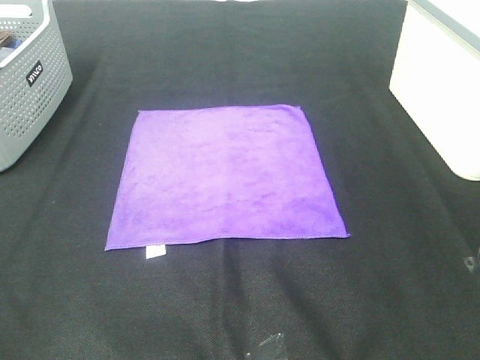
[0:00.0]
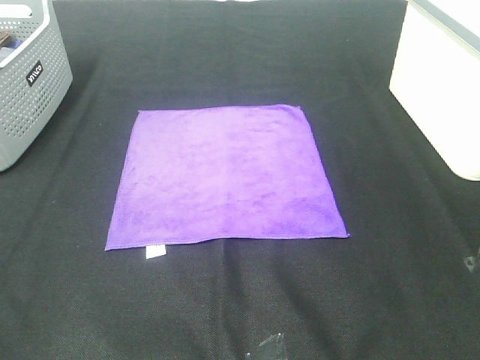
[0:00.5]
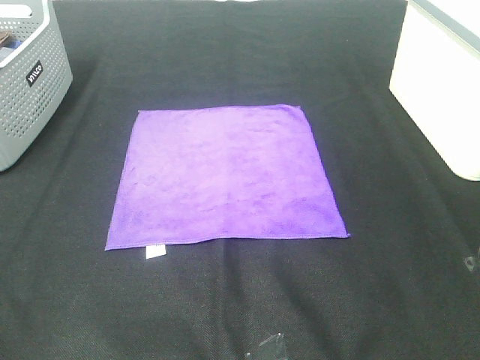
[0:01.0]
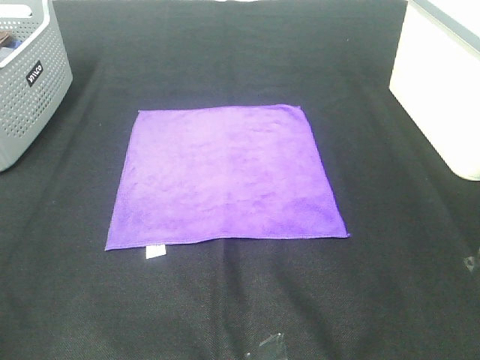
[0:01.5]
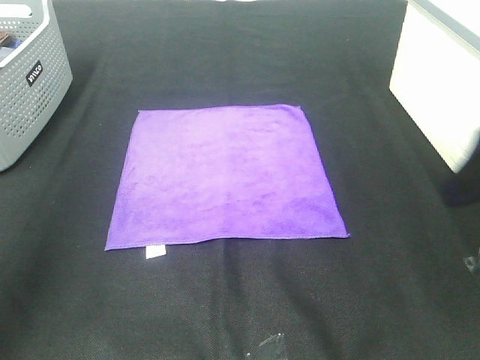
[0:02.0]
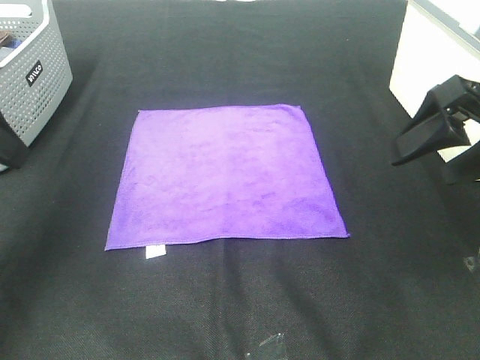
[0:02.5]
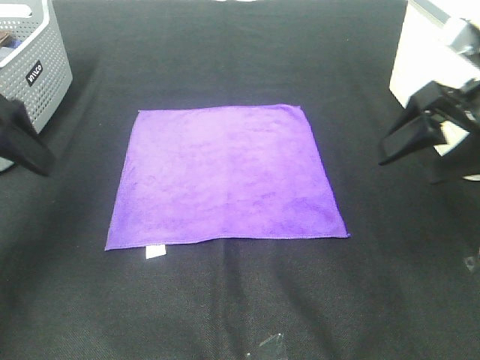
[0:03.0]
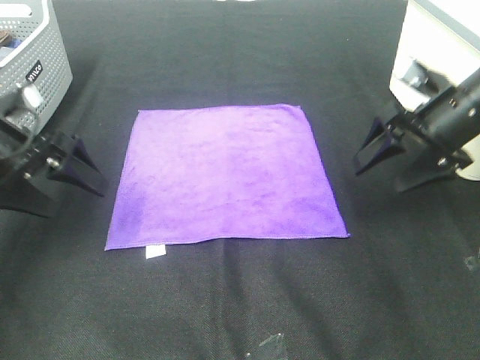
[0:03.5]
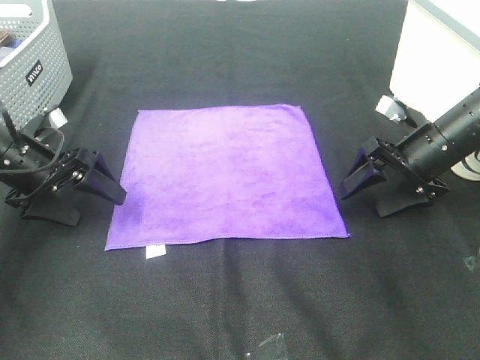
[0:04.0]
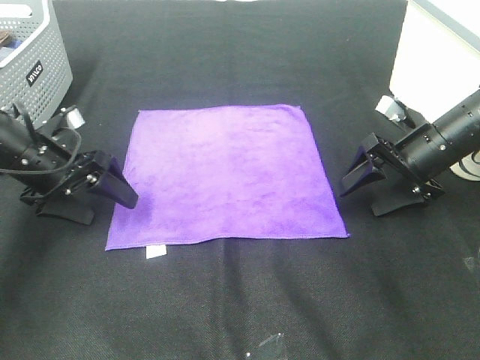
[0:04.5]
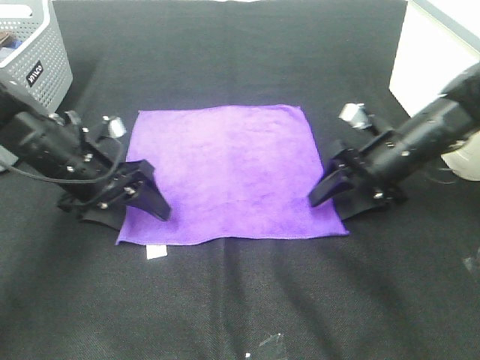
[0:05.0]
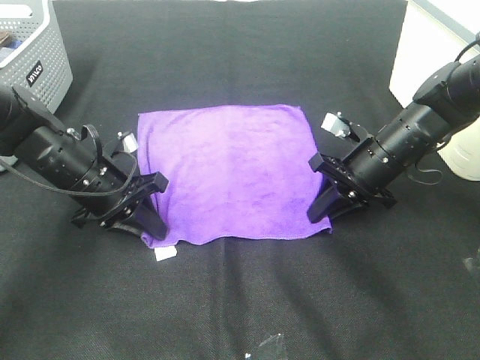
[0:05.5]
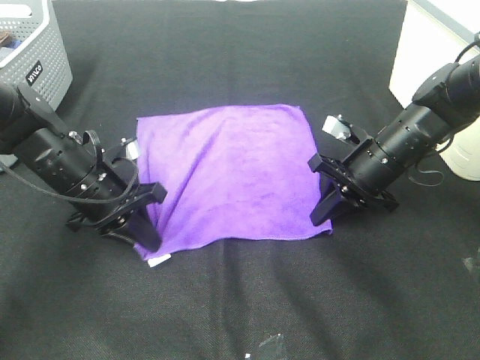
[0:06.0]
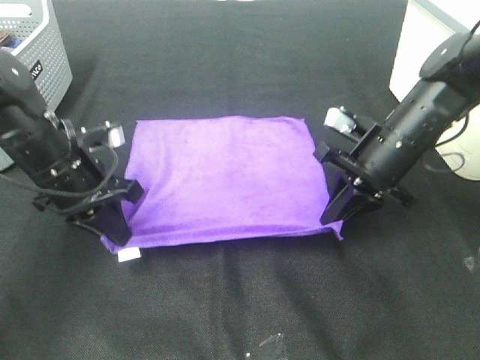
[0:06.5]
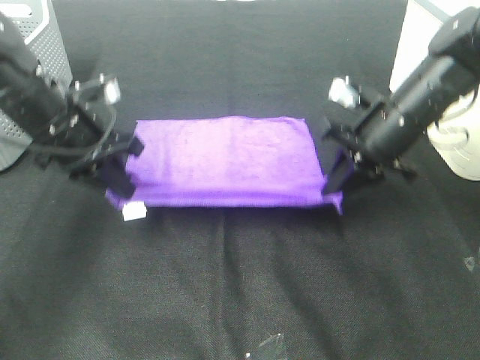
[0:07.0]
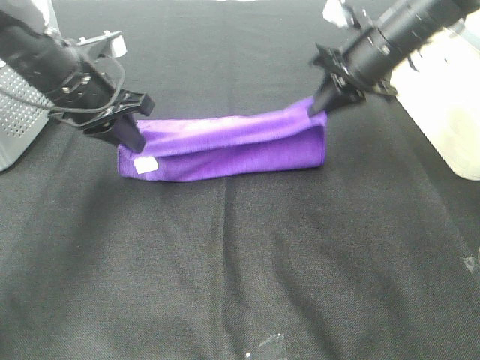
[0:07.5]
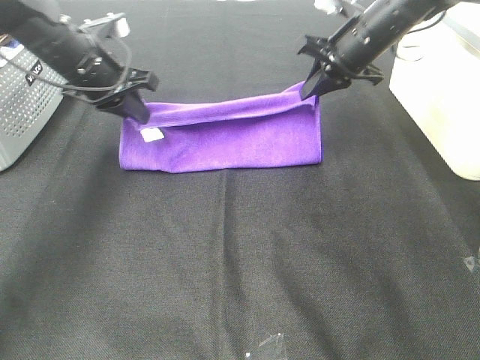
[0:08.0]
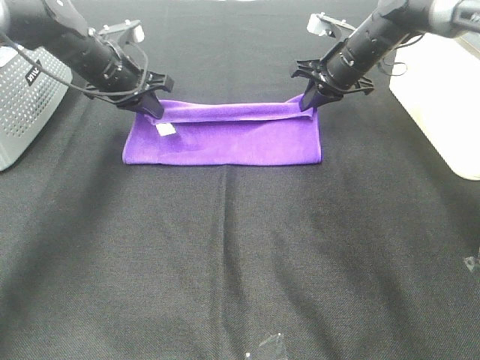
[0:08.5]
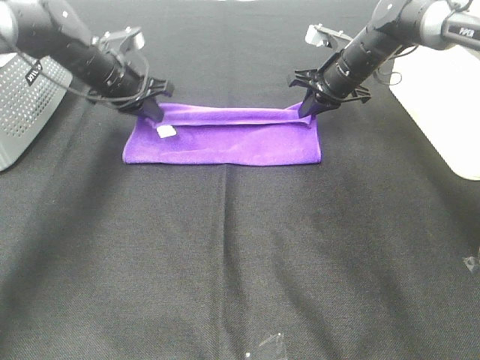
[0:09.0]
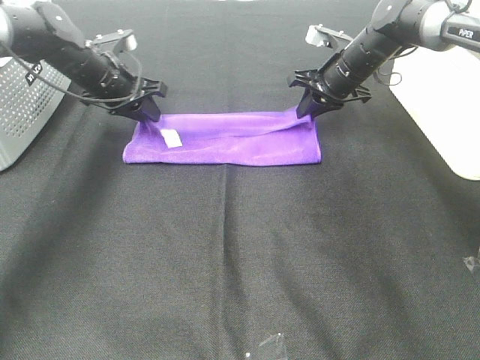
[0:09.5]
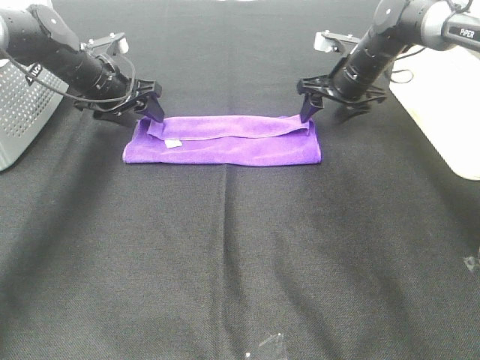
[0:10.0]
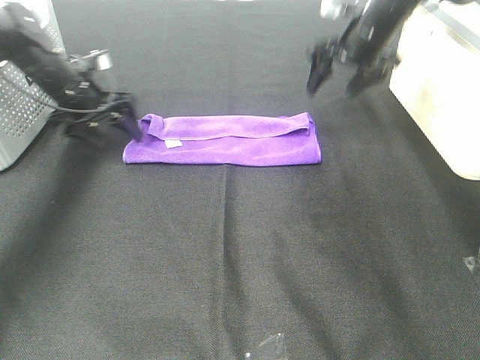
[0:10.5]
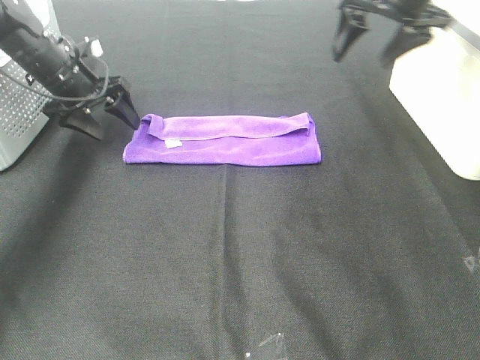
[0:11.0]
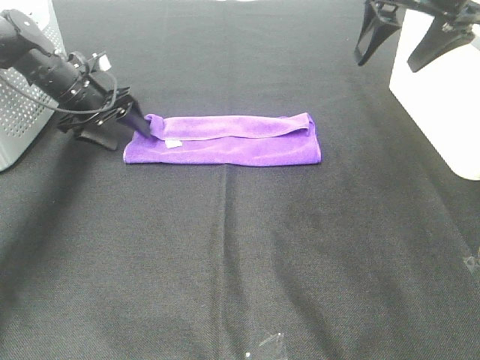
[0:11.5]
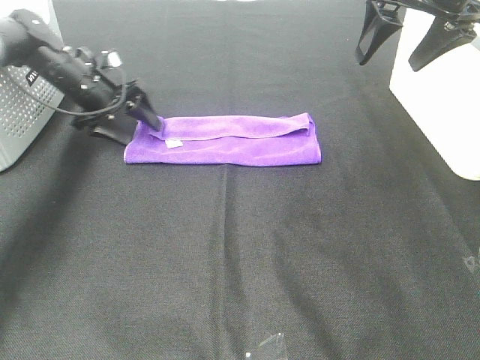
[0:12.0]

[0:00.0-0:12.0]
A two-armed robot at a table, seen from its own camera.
Task of the whole recording: Fold towels.
Step, 0:00.0 to 0:05.5: Left hand: grab the bottom left corner of purple towel.
Step, 0:00.0 to 0:05.5: Right hand: grab the bottom right corner of purple towel.
Step, 0:06.0 to 0:09.0: Left hand: fold the purple towel up.
Step, 0:06.0 to 0:09.0: Right hand: fold the purple towel up.
0:00.0 to 0:02.0: The grippers both shift forward by about 20 cm.
0:02.0 to 0:04.0: The two grippers go approximately 25 cm downward and forward.
0:04.0 to 0:06.0: The left gripper moves to the right, some 10 cm, and closes; the right gripper heads to the left, covering about 5 cm, and closes up.
0:06.0 to 0:08.0: Both grippers travel together forward and upward, roughly 15 cm.
0:08.0 to 0:10.0: The left gripper heads forward and downward, covering about 10 cm, and opens its fingers, while the right gripper is displaced downward by roughly 5 cm, and opens up.
0:10.0 to 0:12.0: The right gripper goes some 25 cm upward and backward.

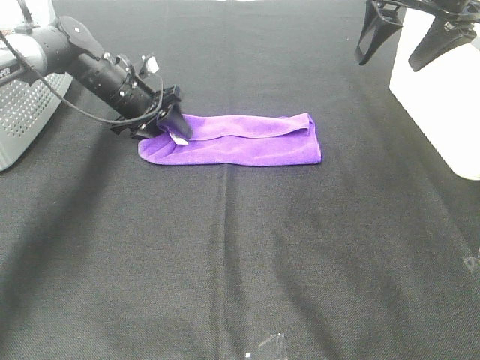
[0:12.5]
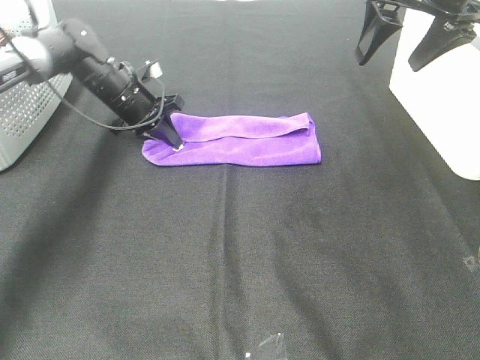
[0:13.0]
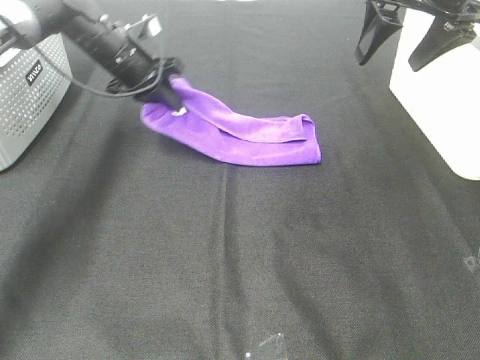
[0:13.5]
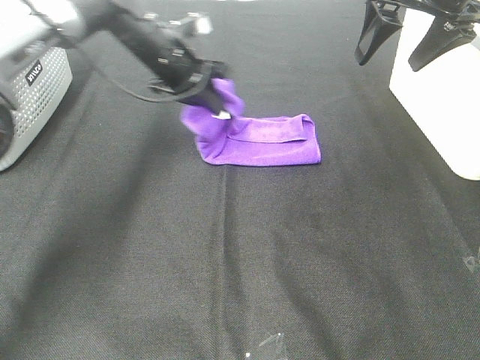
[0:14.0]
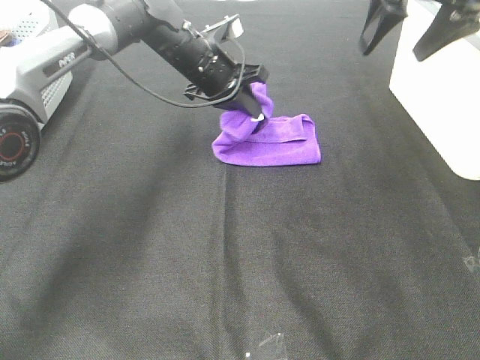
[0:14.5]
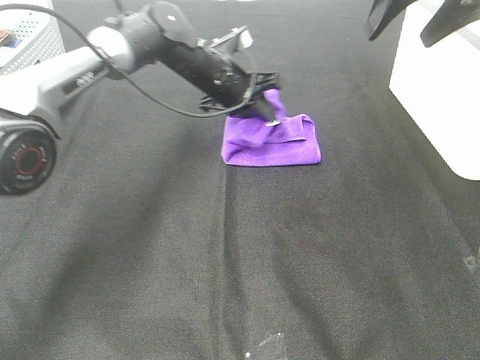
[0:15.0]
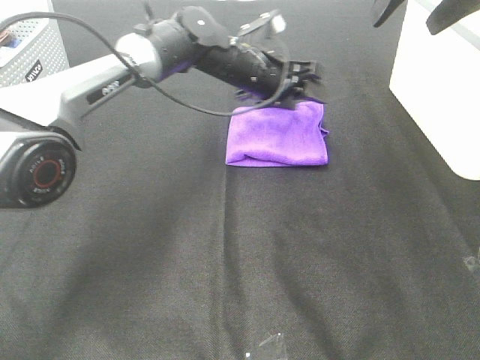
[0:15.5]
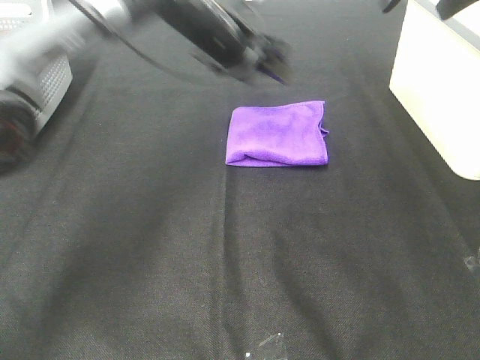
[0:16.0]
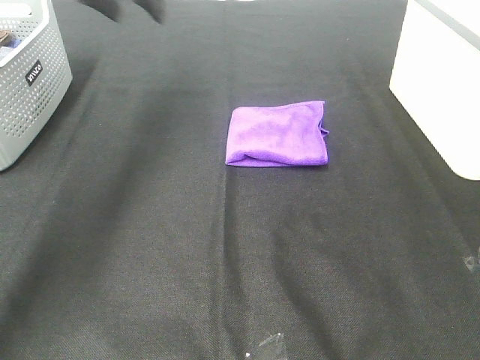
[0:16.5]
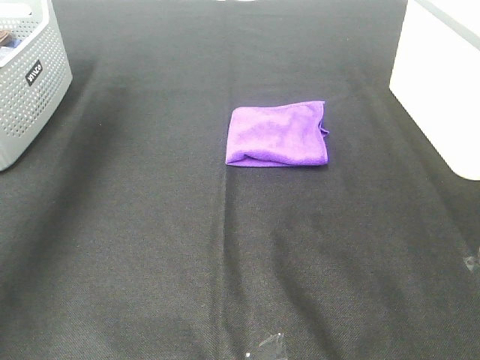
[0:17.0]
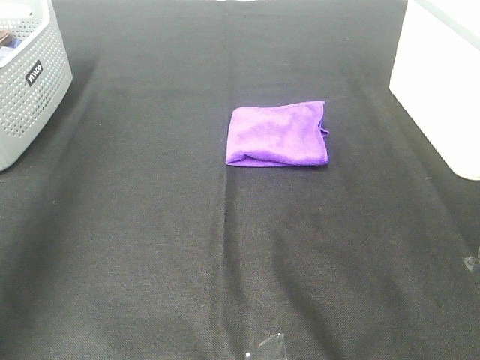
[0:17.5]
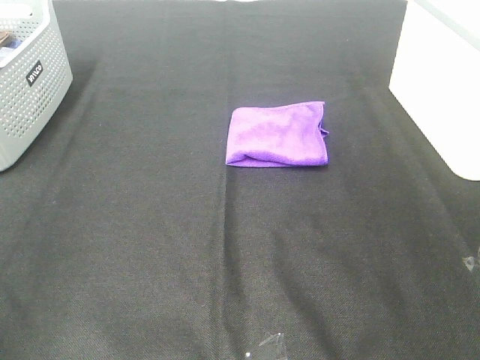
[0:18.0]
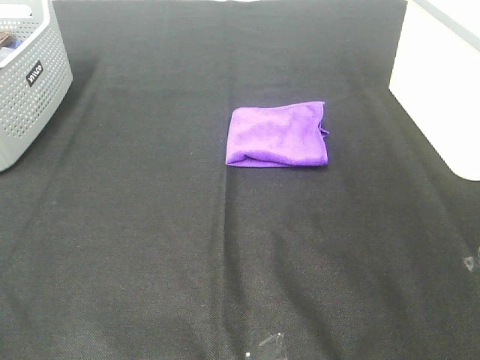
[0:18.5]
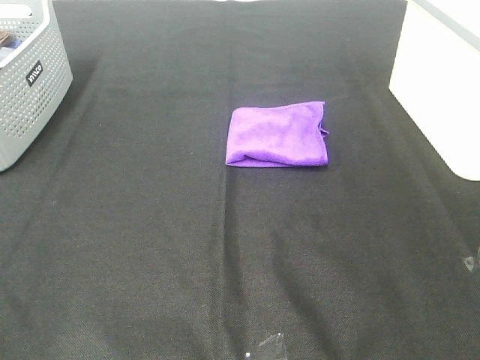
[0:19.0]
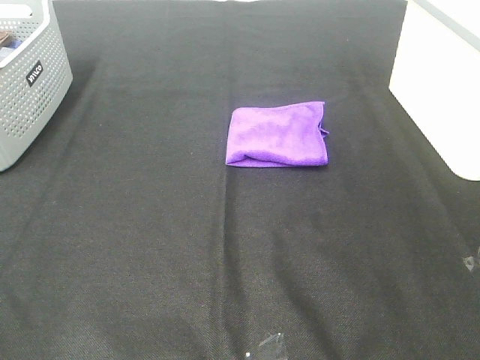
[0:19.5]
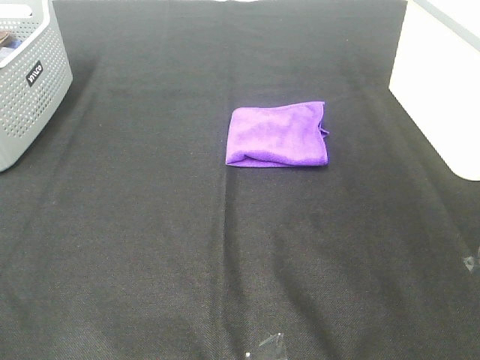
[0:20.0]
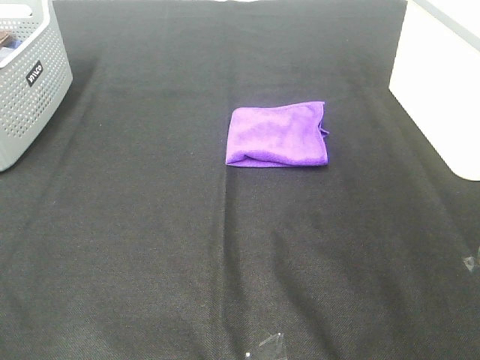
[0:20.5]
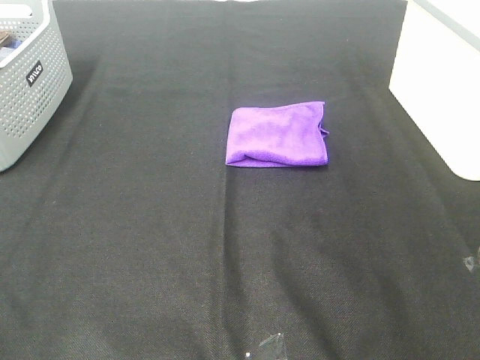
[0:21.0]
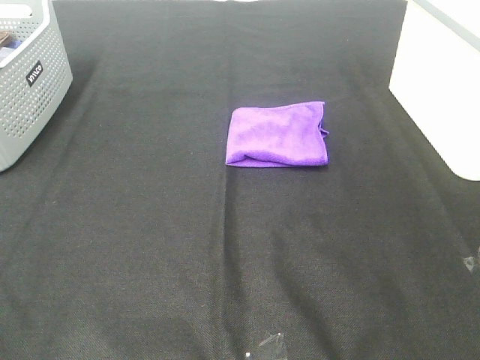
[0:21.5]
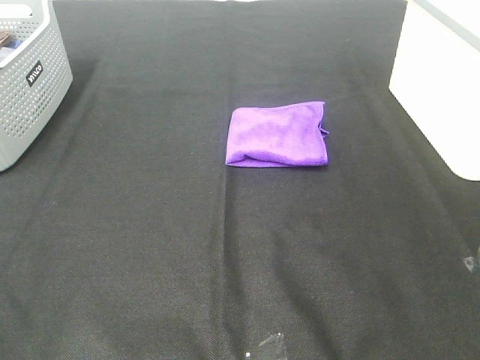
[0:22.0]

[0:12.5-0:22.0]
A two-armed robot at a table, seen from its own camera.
Task of the whole recording: Fold towels.
Step, 0:12.5 to 0:14.5: Left hand: fold the purple towel from left to right.
0:12.5 to 0:14.5: The left gripper goes approximately 15 cm to the right and upward, and closes up.
0:14.5 to 0:16.5: The left gripper heads upward and to the left, covering some 20 cm, and opens its fingers. Meanwhile the right gripper shifts some 10 cm upward and backward.
0:16.5 to 0:18.0: The left gripper goes roughly 50 cm backward, while the right gripper shifts roughly 30 cm backward.
0:20.0 to 0:22.0: Both grippers stay about where they are.

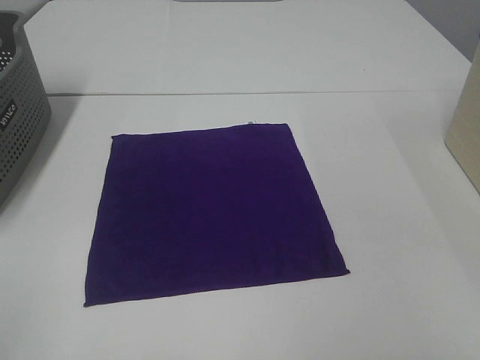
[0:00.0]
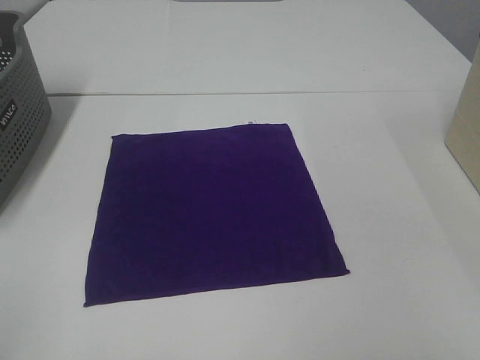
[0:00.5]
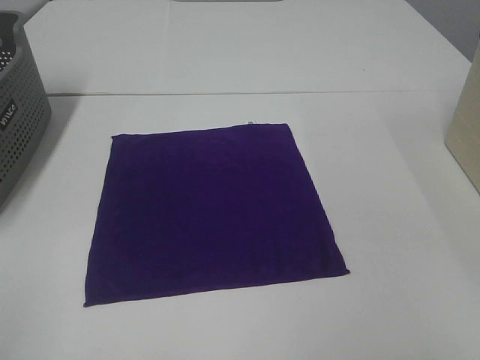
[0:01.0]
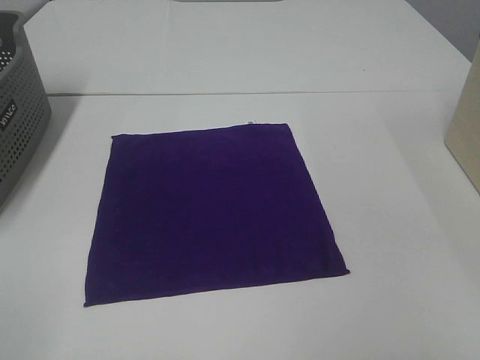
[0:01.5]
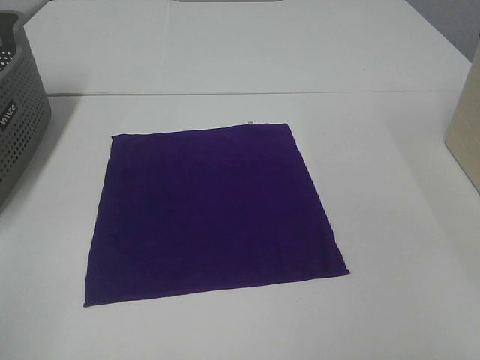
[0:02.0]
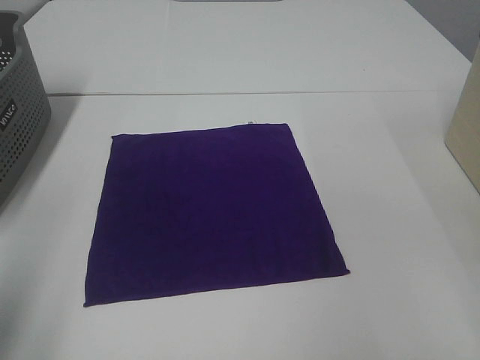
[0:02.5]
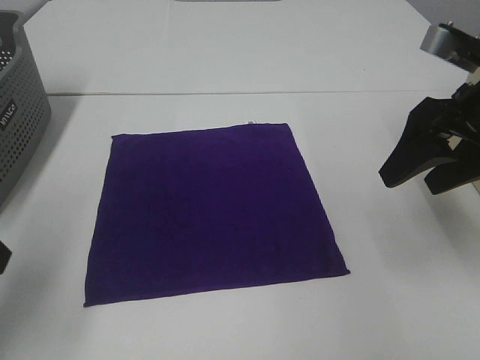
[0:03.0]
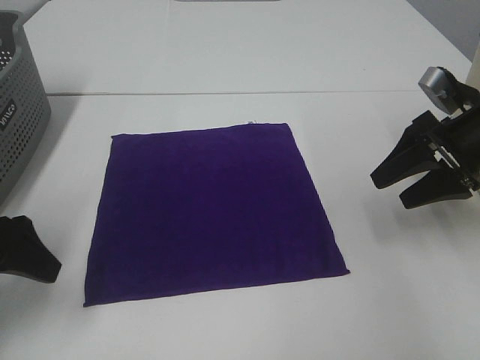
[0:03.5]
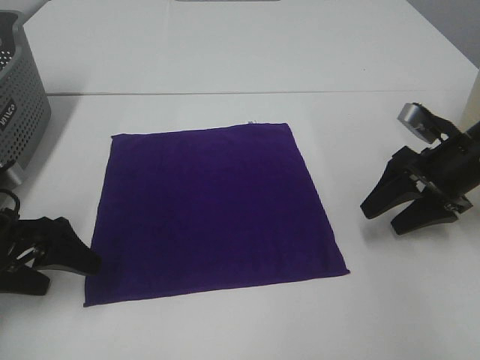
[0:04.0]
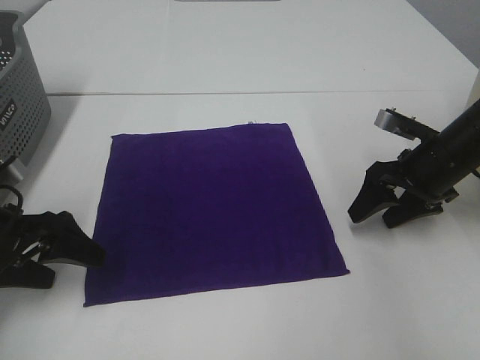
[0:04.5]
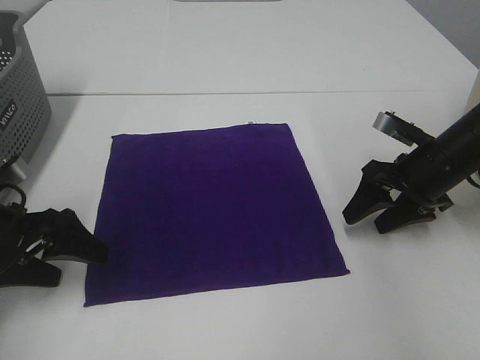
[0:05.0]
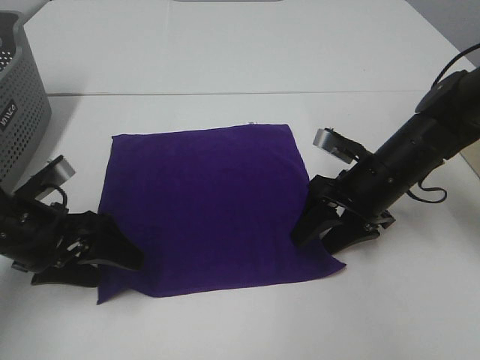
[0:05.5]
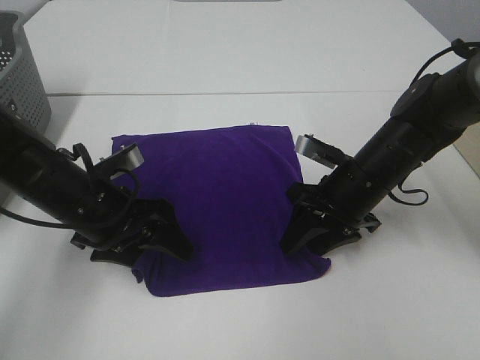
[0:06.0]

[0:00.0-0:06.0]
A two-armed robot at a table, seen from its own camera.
Task of the whole recording: Fold towels.
0:02.0 to 0:04.0: The two grippers go approximately 35 cm forward and downward.
0:04.0 to 0:06.0: The left gripper goes some 10 cm to the right. Meanwhile the right gripper is displaced to the left by some 10 cm, and closes.
